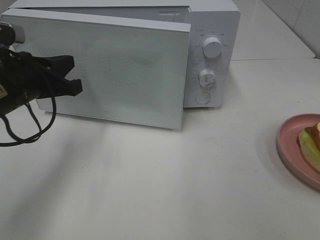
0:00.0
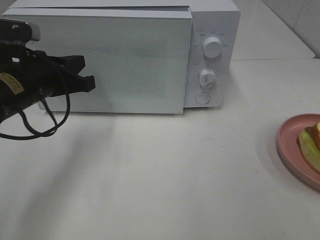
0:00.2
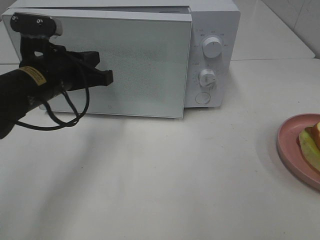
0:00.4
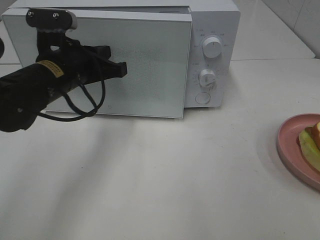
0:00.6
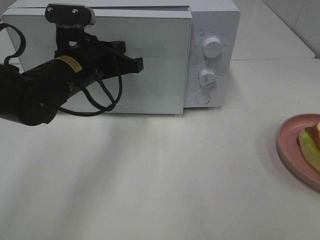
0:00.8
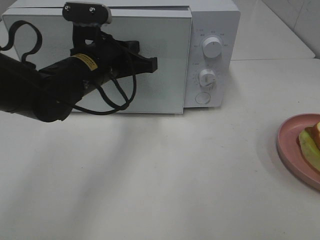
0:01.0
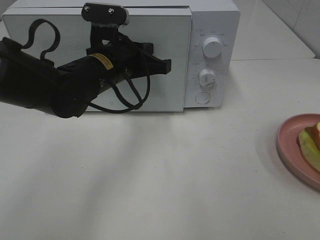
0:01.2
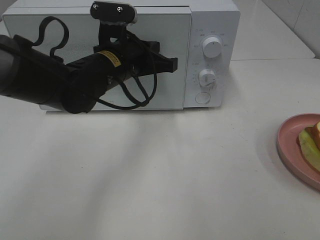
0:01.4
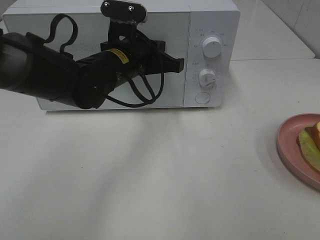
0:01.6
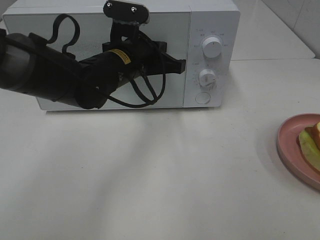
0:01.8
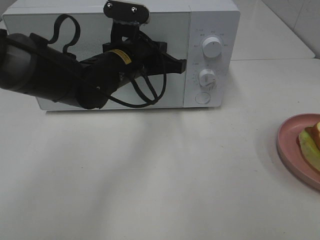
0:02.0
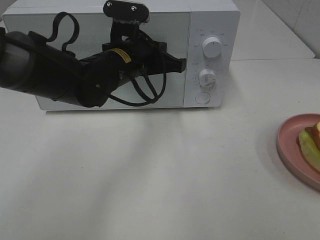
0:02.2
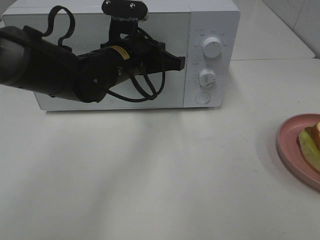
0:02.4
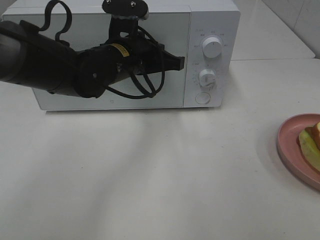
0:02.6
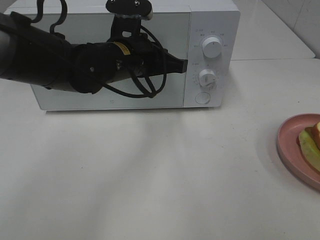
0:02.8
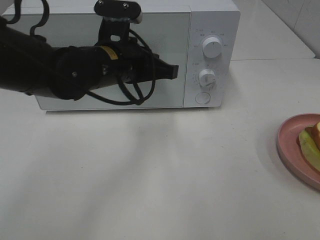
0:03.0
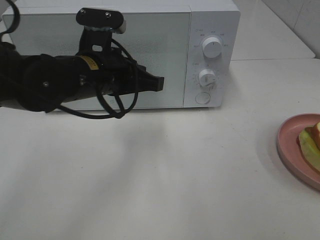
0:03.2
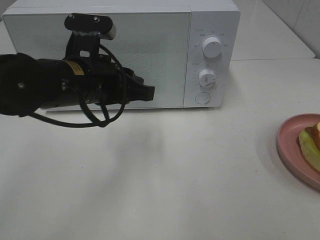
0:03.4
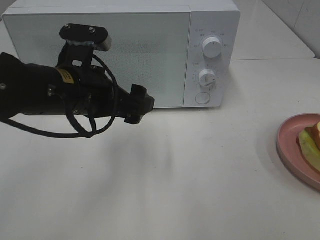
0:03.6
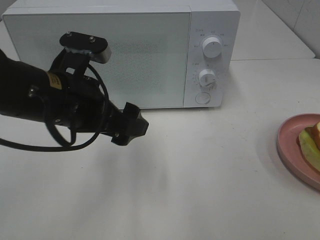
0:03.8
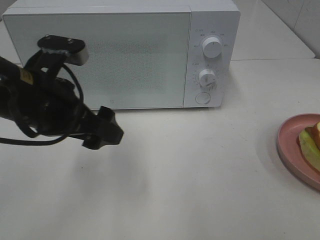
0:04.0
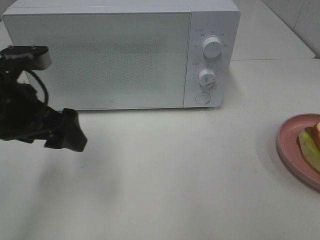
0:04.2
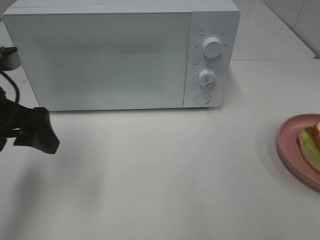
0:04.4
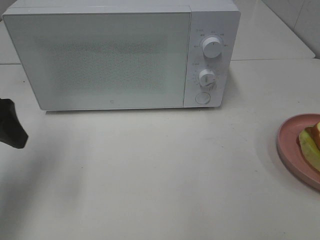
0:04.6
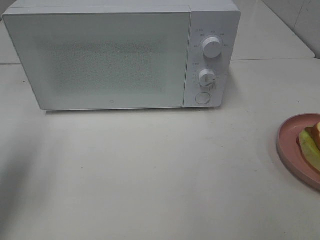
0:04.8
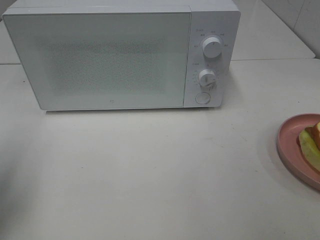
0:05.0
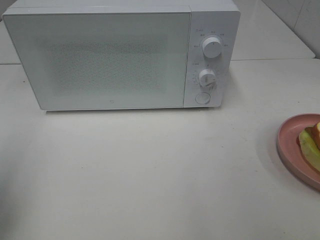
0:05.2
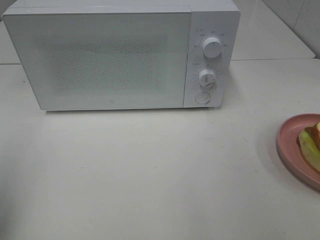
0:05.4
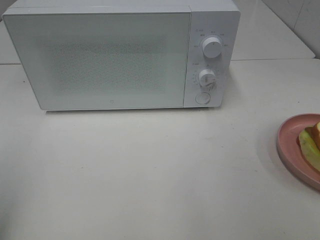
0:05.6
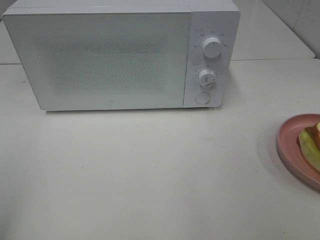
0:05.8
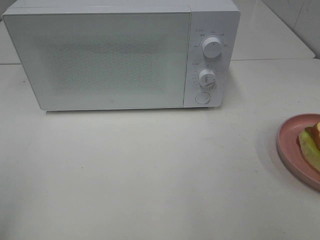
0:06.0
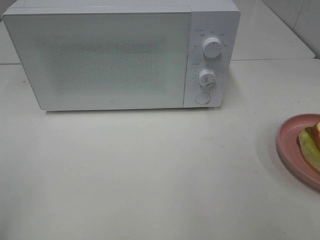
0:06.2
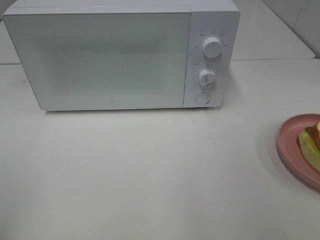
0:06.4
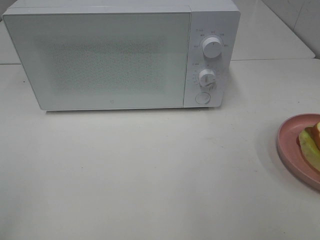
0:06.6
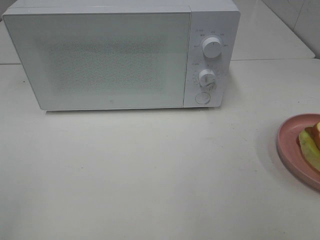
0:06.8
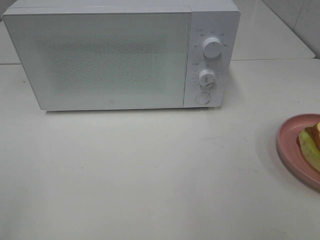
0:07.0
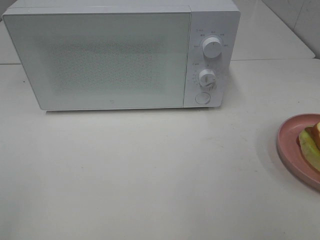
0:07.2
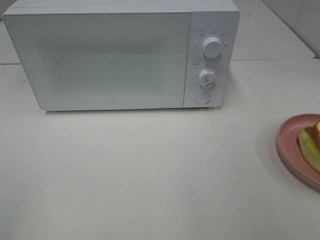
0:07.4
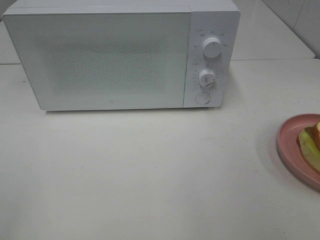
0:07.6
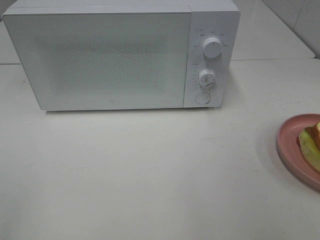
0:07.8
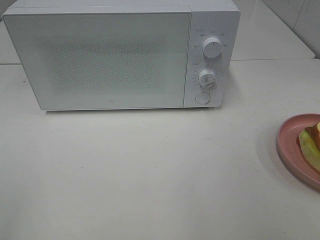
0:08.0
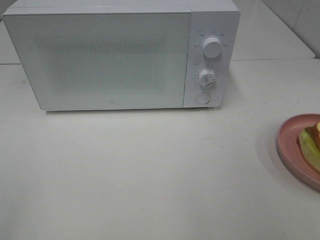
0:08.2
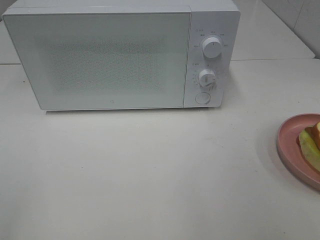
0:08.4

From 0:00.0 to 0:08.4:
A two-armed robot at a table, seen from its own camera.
Task of the whole recording: Heat Sandwich.
Step, from 0:00.0 to 0:03.0: Left hand: close the microwave door.
From 0:00.0 to 0:01.4: The left gripper travels to the right and forward by roughly 15 cm.
From 0:01.4 to 0:02.8: The grippers move only a little.
From 0:02.8 to 0:04.2: The left gripper travels to the left and backward by about 20 cm, and opens.
From 0:04.2 to 0:05.6: The left gripper shifts roughly 20 cm backward, to the left and upward.
From 0:07.0 to 0:08.4: The two grippers keep their place.
